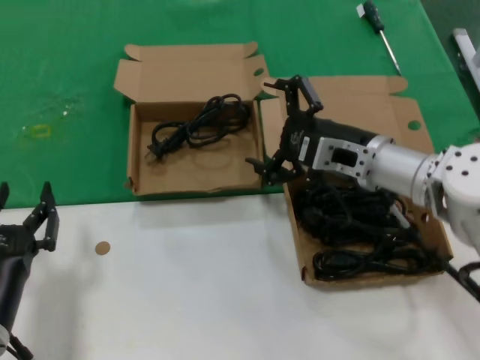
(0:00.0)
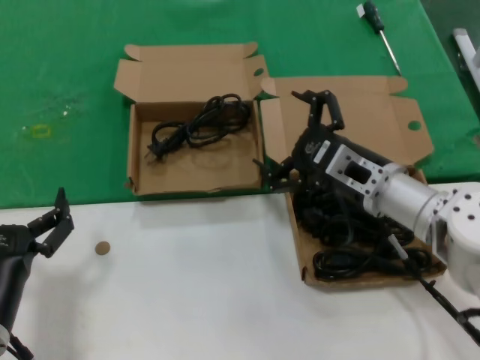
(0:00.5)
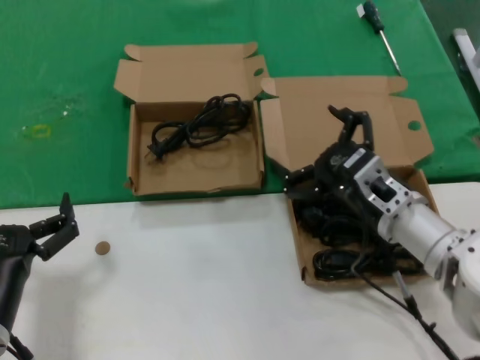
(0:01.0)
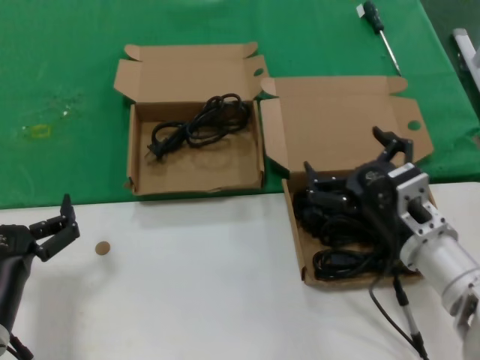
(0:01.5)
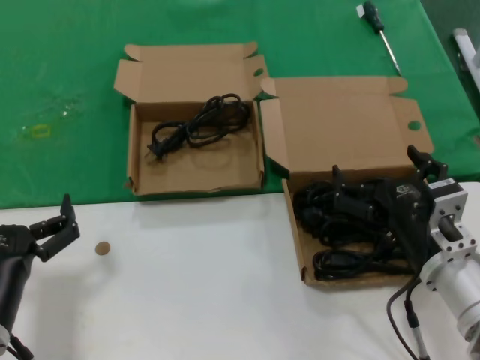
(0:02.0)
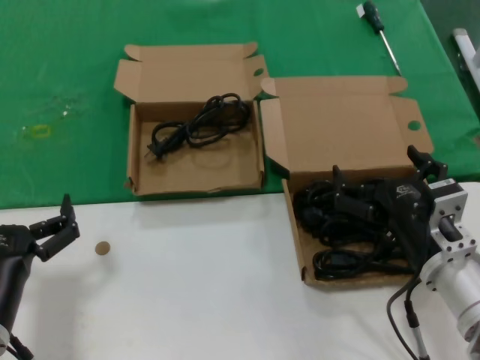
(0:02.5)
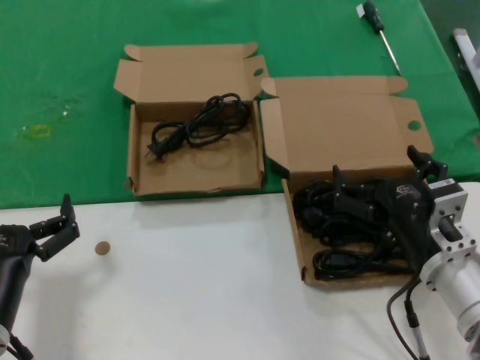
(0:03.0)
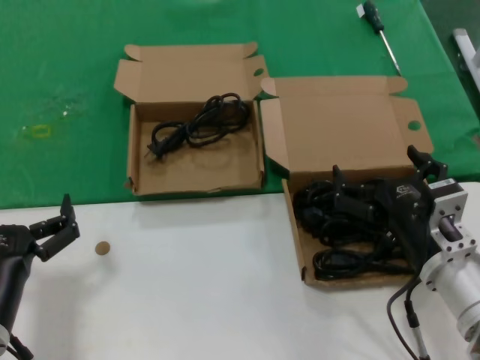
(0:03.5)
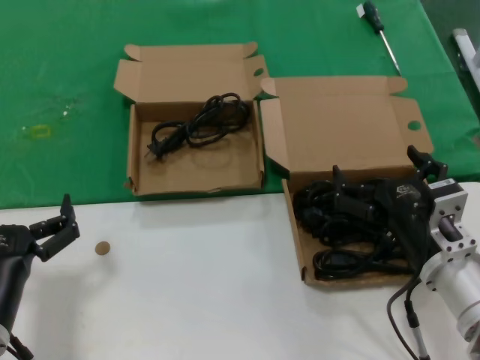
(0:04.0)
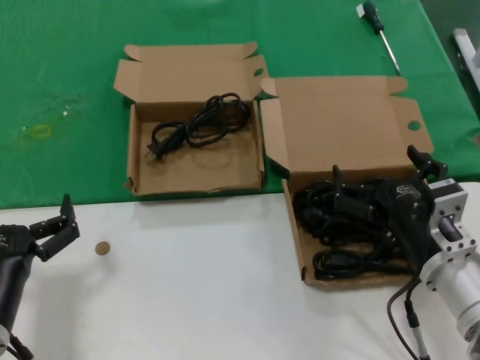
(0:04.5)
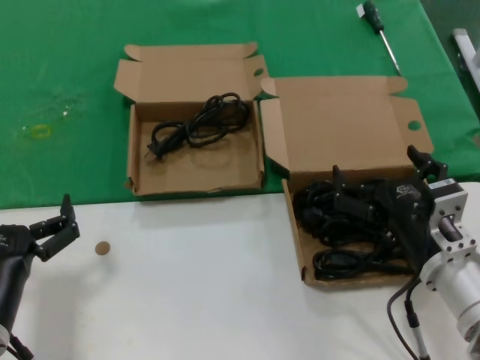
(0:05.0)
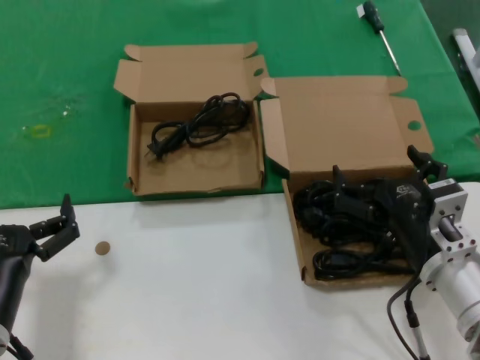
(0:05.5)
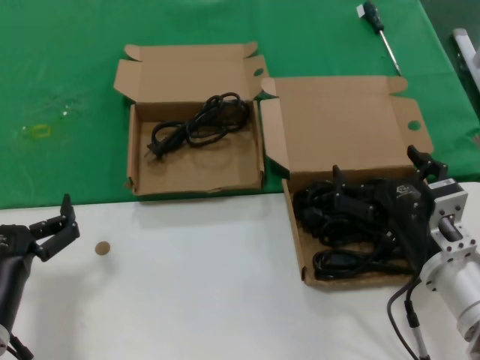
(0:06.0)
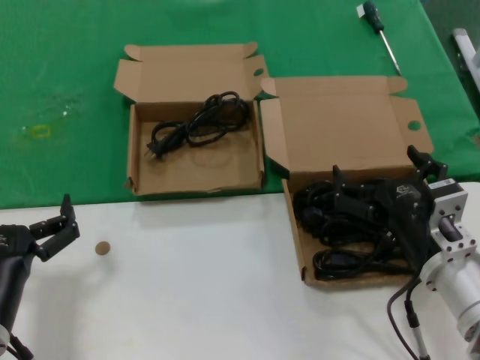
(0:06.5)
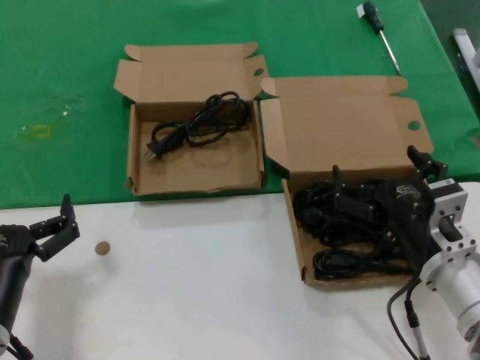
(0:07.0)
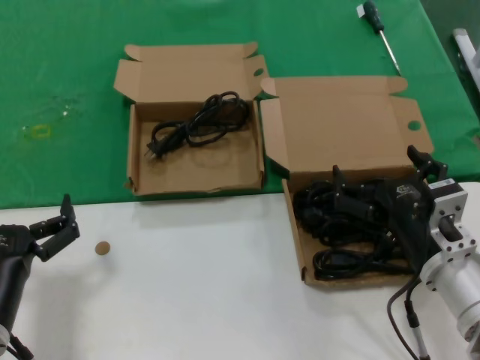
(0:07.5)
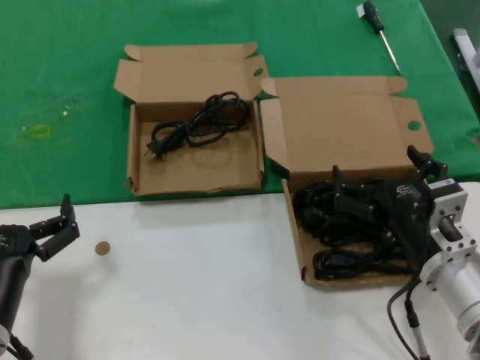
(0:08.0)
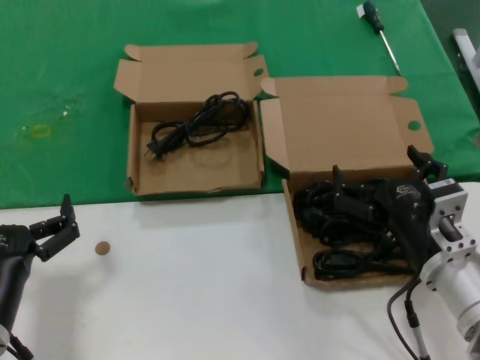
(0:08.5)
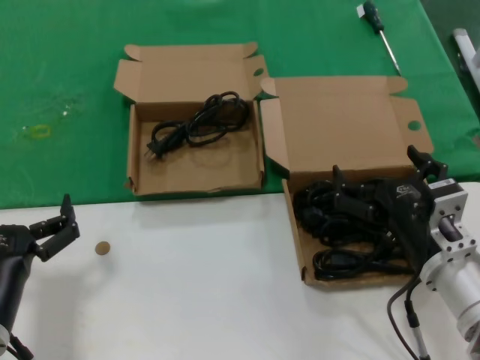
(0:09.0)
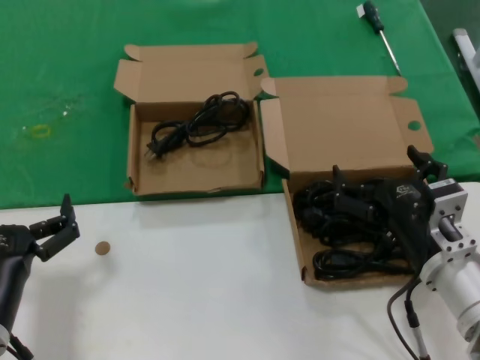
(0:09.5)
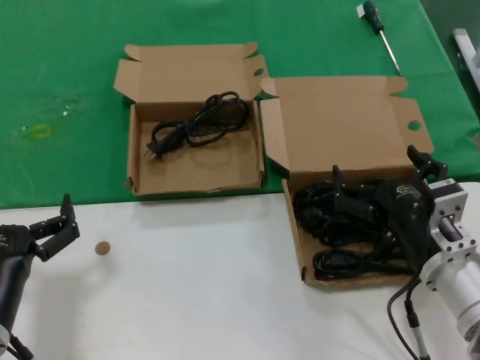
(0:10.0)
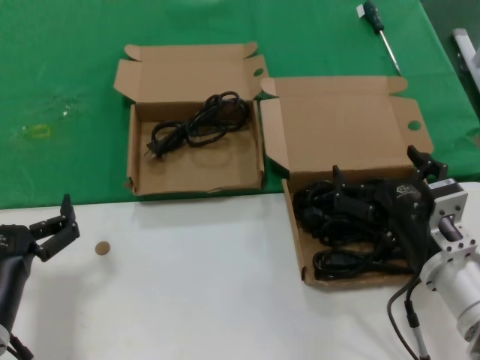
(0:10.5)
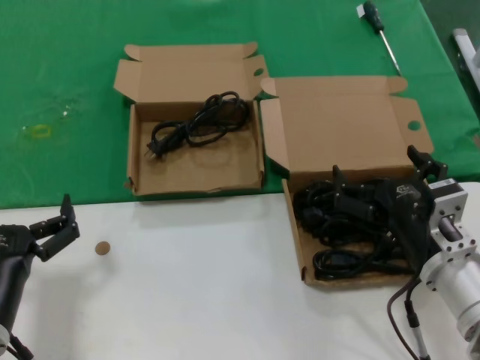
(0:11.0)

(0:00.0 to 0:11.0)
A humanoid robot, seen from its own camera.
Task of the whole recording: take the parts from the box containing them and put them into an empty box.
0:00.0 - 0:02.0: The right hand goes some 15 cm backward and downward.
0:02.0 - 0:11.0: The two hands keep their place.

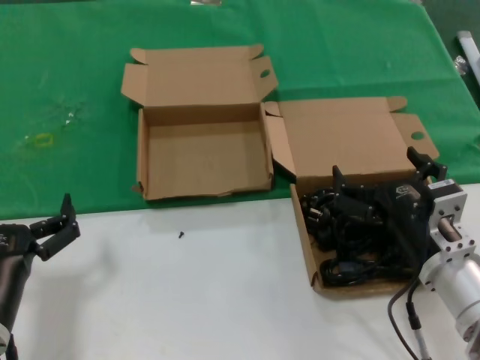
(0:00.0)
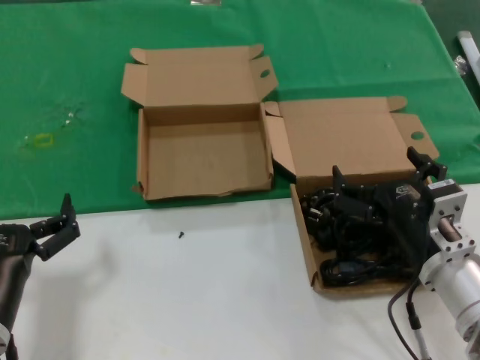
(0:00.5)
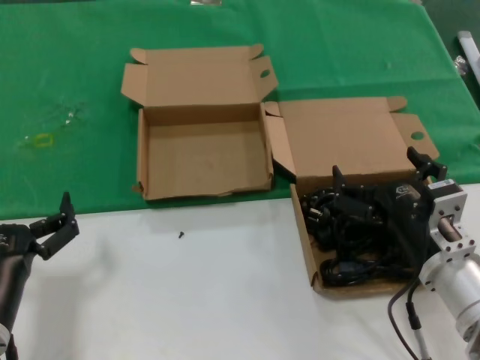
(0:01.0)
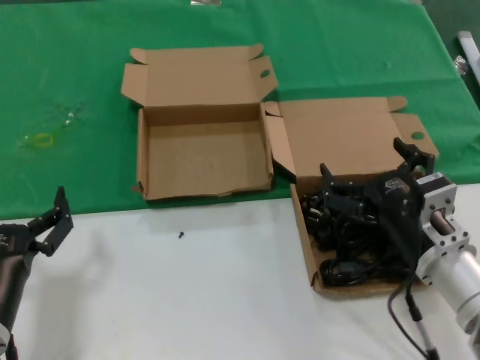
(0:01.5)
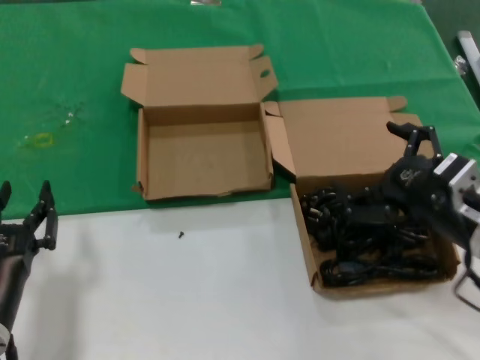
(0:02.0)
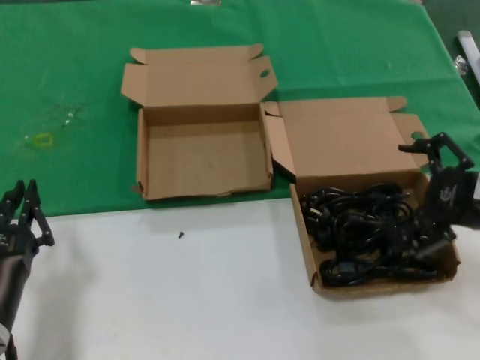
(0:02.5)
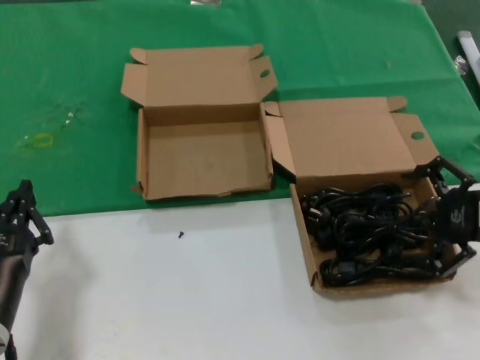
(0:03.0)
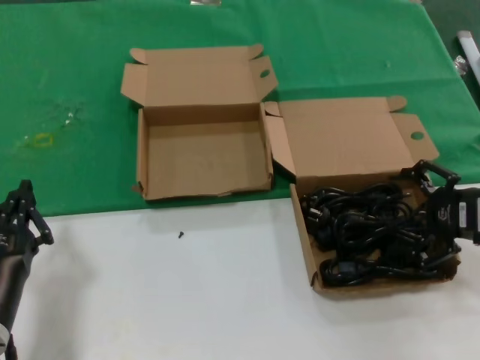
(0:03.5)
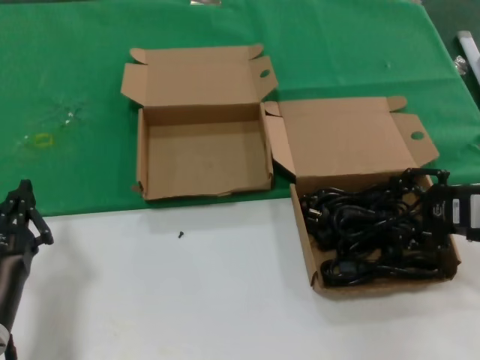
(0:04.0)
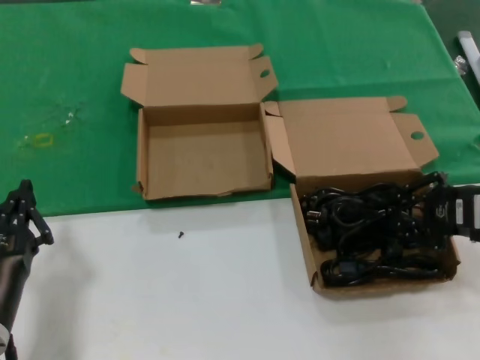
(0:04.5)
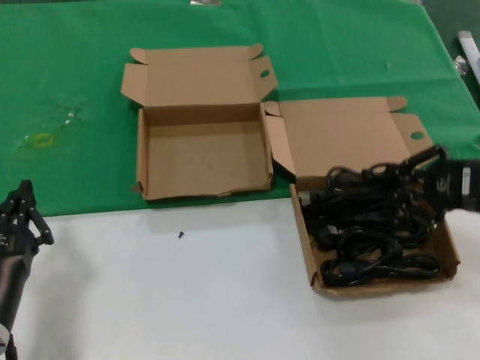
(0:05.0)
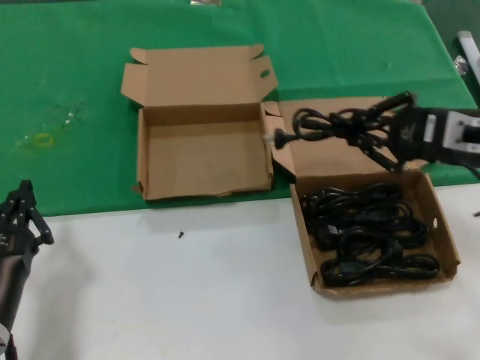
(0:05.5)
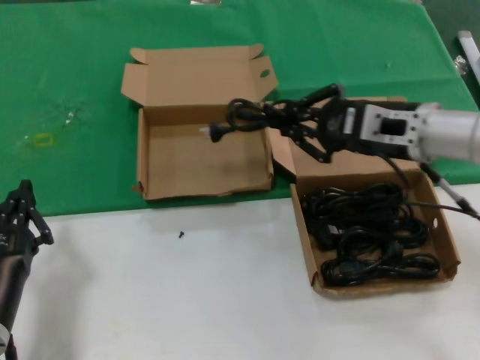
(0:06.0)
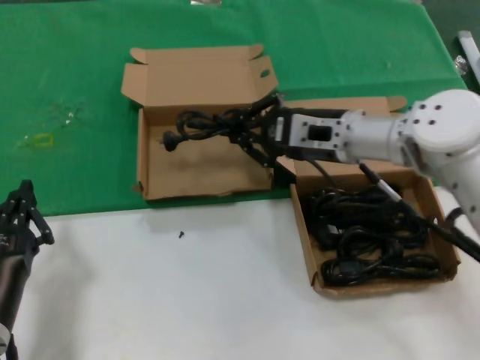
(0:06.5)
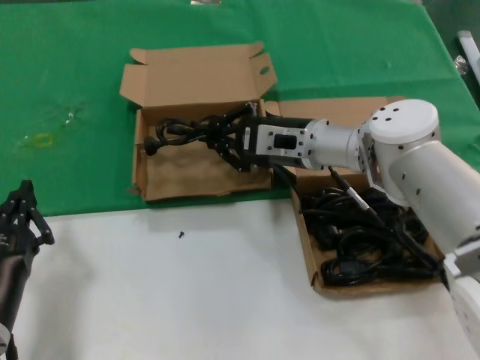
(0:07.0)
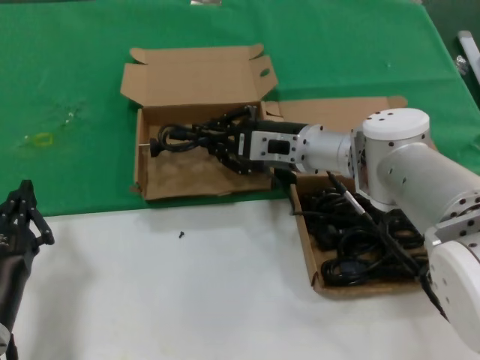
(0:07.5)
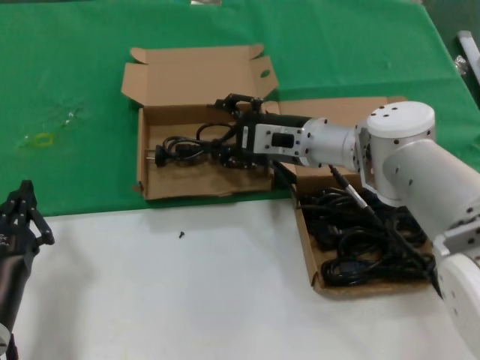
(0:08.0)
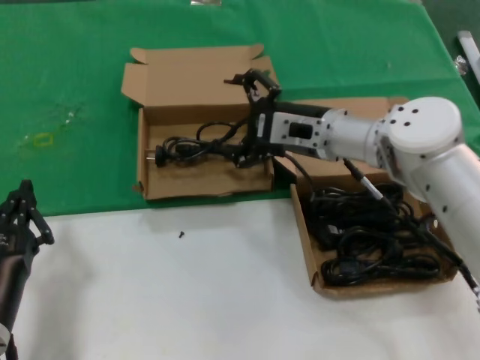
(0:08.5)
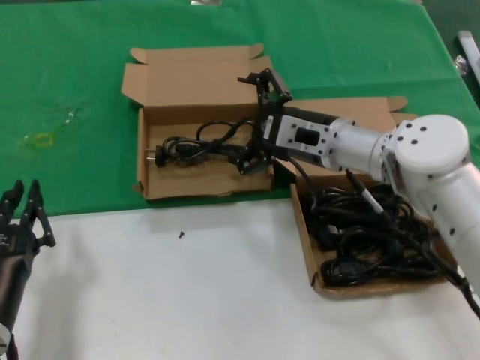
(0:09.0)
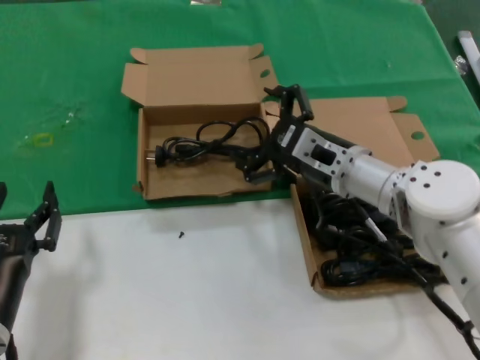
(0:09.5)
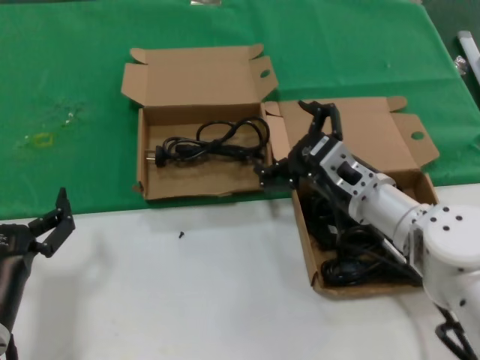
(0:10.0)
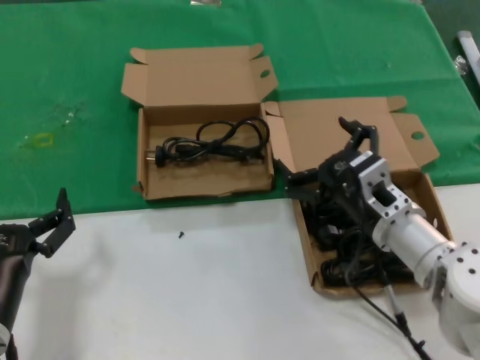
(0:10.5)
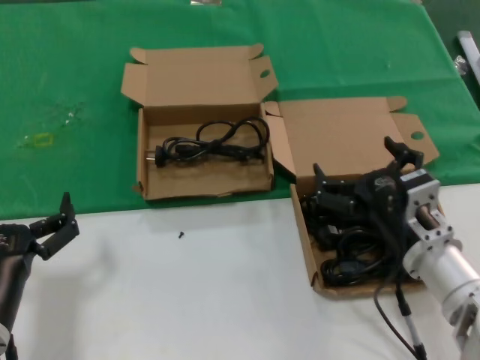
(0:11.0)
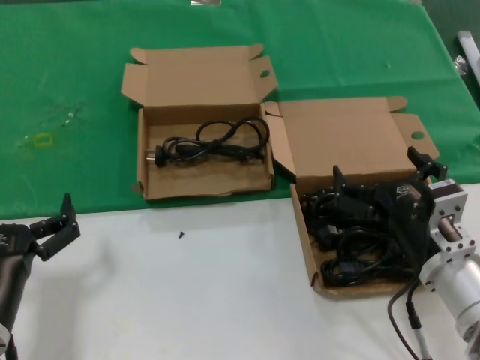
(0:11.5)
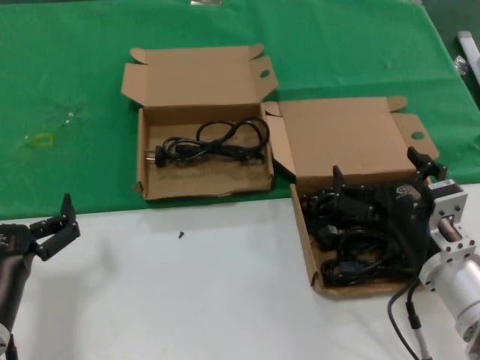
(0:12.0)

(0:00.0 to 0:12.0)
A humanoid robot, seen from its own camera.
Task of the whole recording: take the parts from the box containing them and put them into an empty box.
Step, 0:00.0 - 0:04.5: Grasp the data cable.
Step, 0:05.0 - 0:08.0: Place the data cable in the another box.
0:00.0 - 0:02.0: The right hand travels upward and to the right by roughly 10 cm.
0:02.0 - 0:04.0: The right hand heads to the right and forward, covering roughly 10 cm.
0:04.0 - 0:06.0: The right hand goes roughly 15 cm to the left, forward and upward.
0:06.0 - 0:08.0: The right hand heads to the left, forward and downward, covering roughly 15 cm.
0:08.0 - 0:10.0: The right hand heads backward, covering about 10 cm.
0:10.0 - 0:12.0: The right hand travels backward by roughly 10 cm.

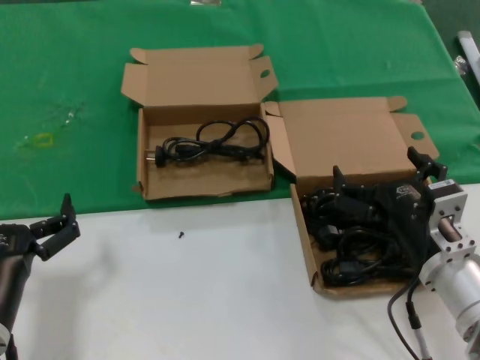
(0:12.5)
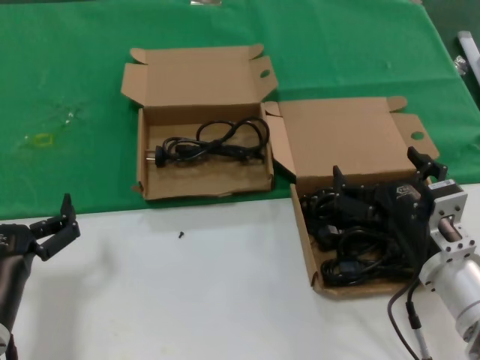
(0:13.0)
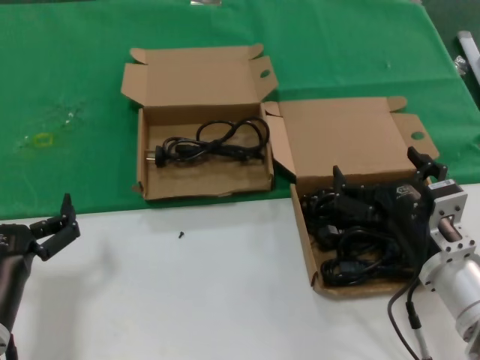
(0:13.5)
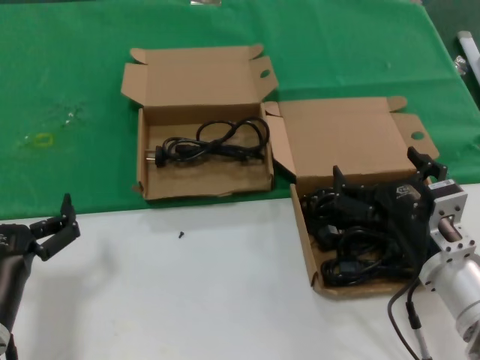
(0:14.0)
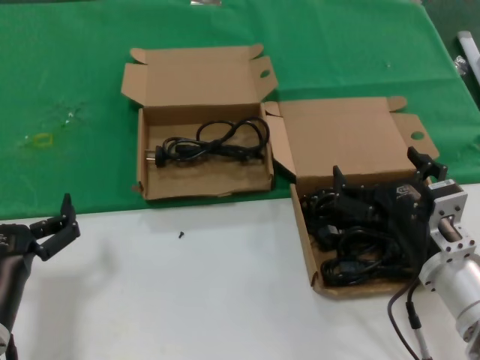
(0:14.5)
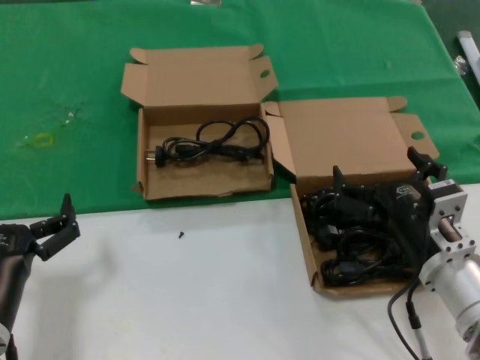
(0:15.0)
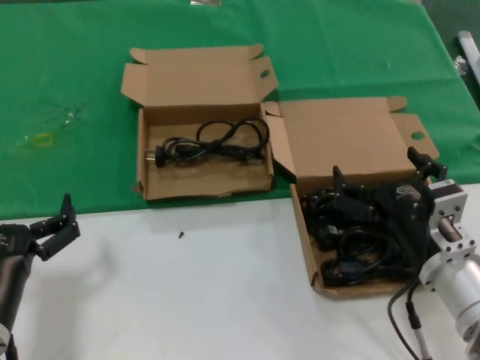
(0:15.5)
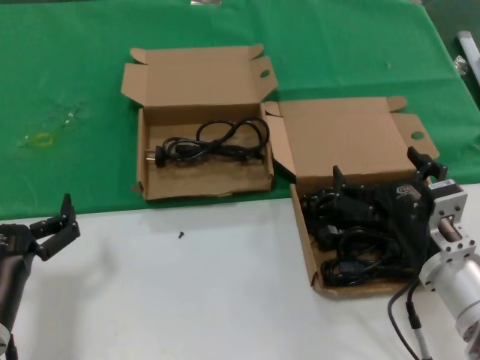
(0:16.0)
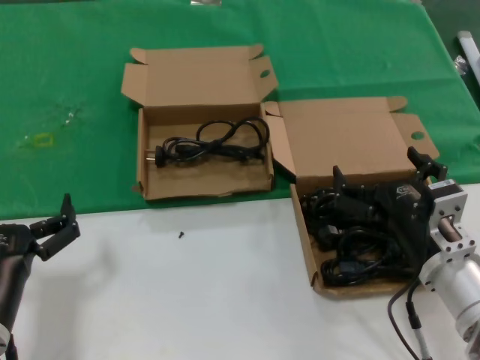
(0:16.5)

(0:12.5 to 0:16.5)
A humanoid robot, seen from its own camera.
Task of the whole recording: take the parts from the box containing them and put them into an empty box.
0:12.5 - 0:16.5: Neither hand changes place.
